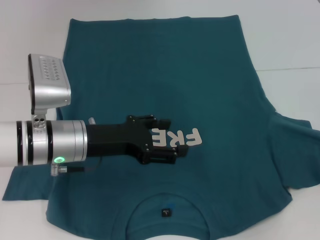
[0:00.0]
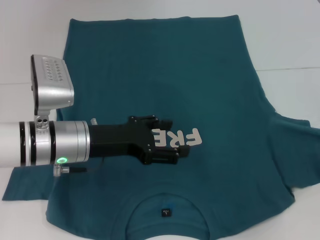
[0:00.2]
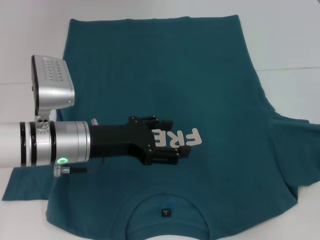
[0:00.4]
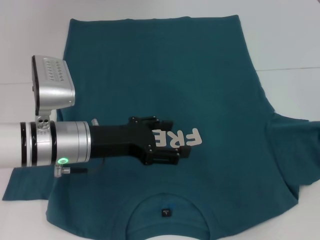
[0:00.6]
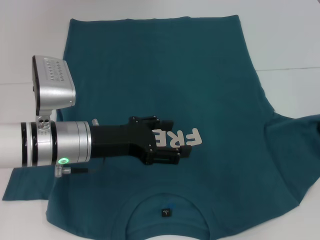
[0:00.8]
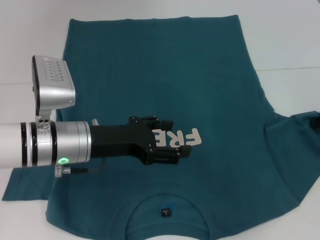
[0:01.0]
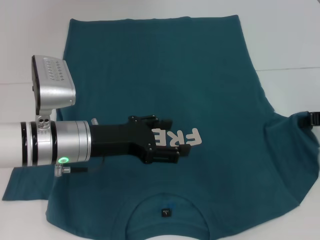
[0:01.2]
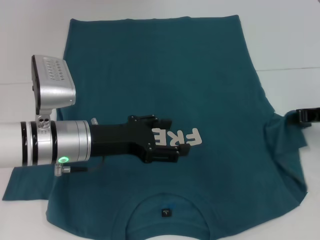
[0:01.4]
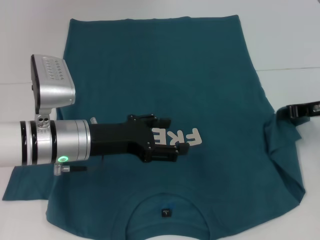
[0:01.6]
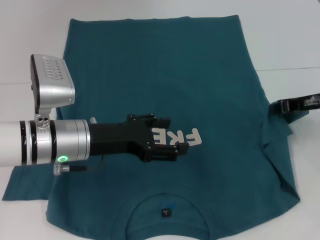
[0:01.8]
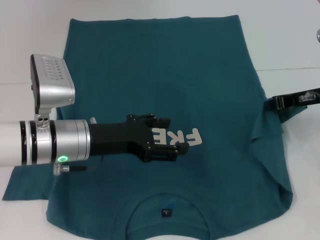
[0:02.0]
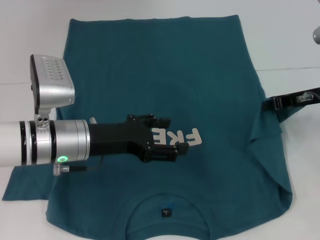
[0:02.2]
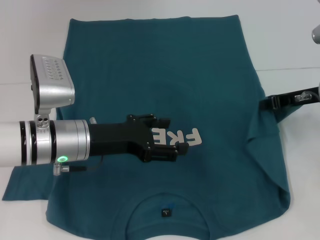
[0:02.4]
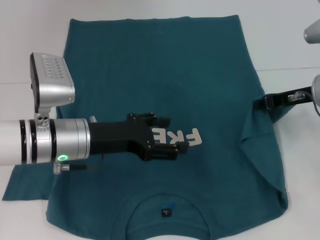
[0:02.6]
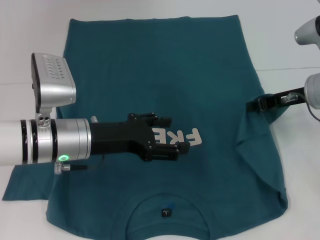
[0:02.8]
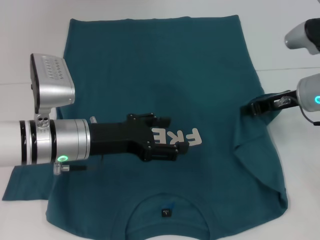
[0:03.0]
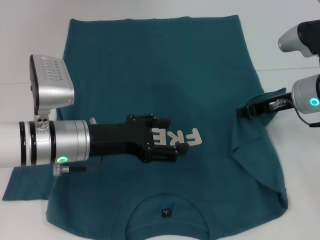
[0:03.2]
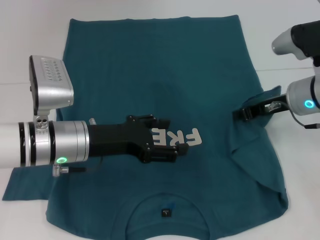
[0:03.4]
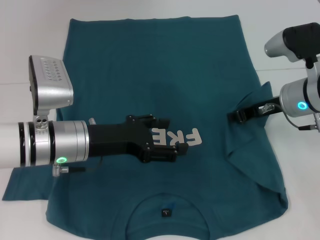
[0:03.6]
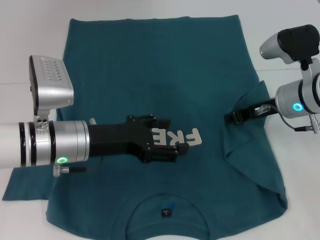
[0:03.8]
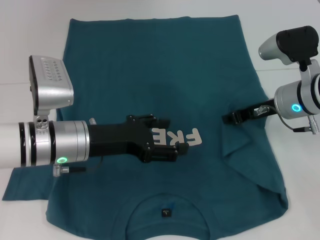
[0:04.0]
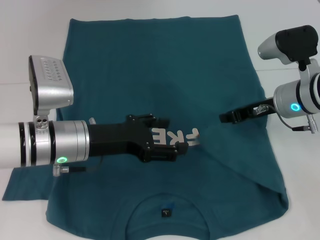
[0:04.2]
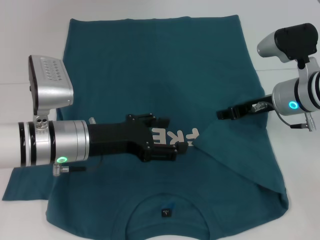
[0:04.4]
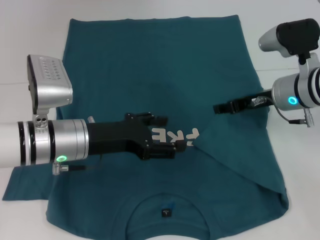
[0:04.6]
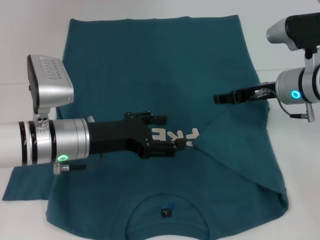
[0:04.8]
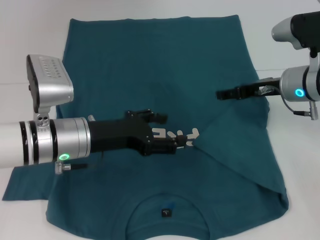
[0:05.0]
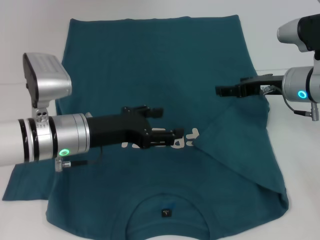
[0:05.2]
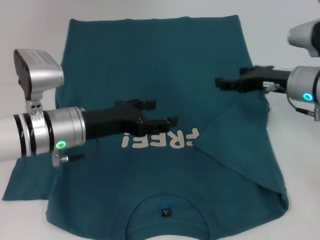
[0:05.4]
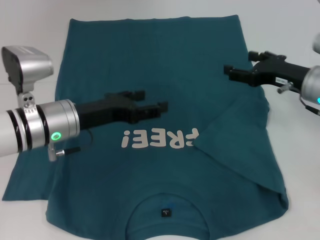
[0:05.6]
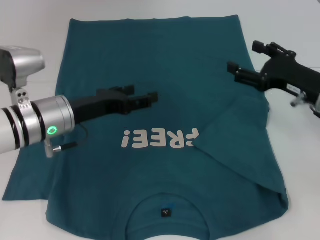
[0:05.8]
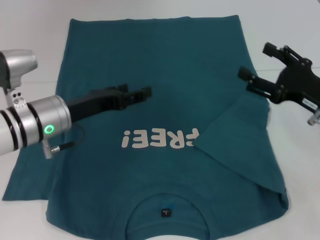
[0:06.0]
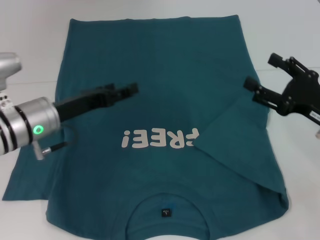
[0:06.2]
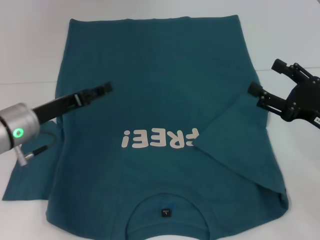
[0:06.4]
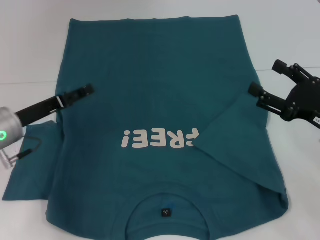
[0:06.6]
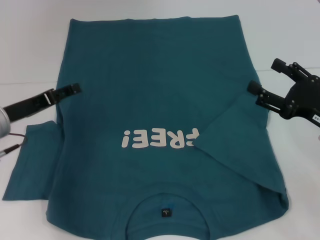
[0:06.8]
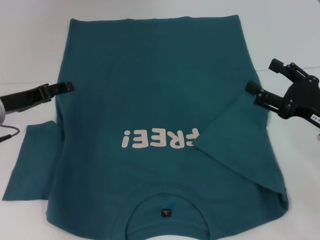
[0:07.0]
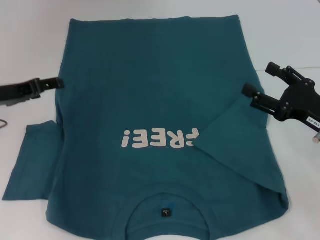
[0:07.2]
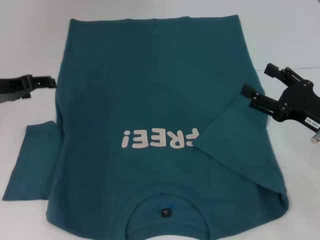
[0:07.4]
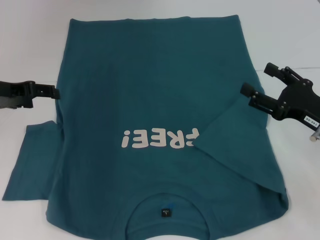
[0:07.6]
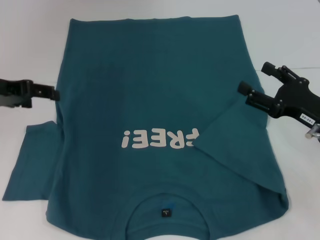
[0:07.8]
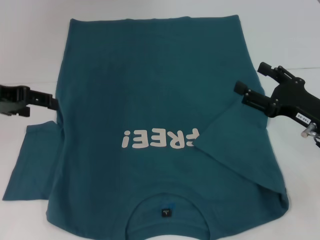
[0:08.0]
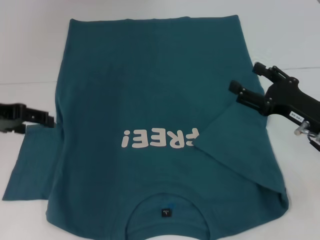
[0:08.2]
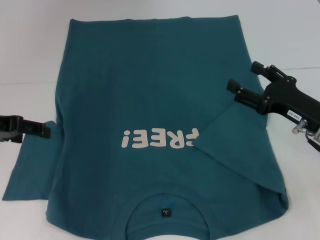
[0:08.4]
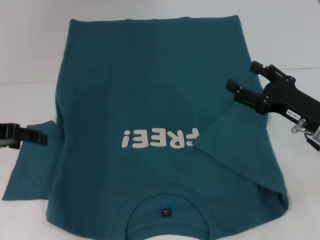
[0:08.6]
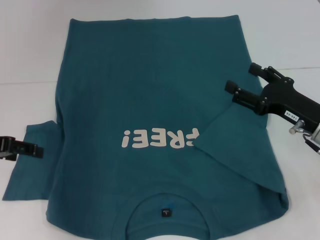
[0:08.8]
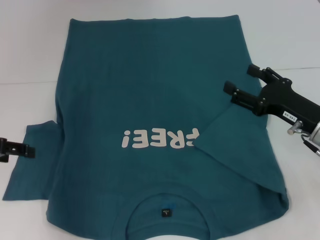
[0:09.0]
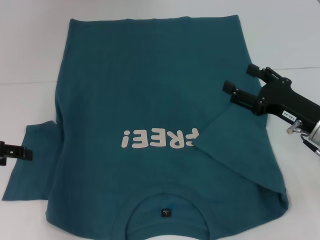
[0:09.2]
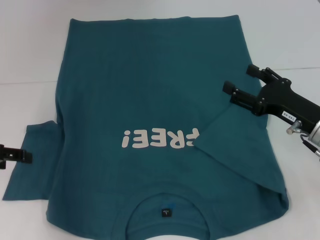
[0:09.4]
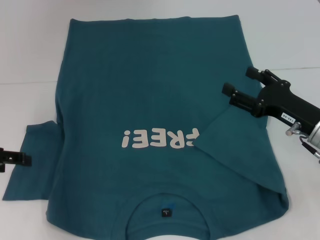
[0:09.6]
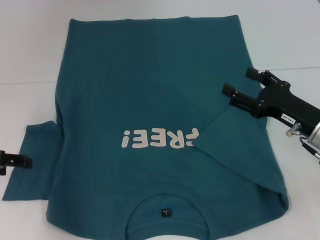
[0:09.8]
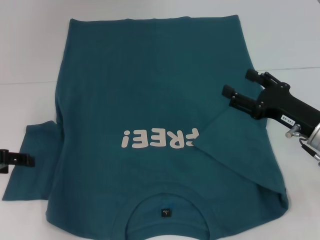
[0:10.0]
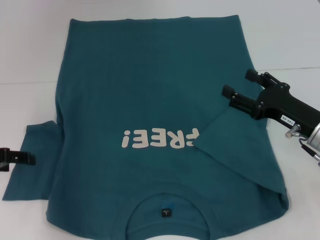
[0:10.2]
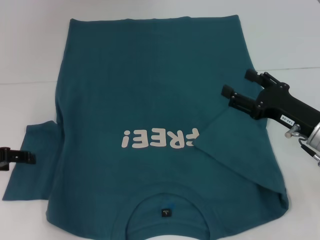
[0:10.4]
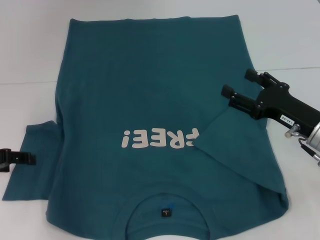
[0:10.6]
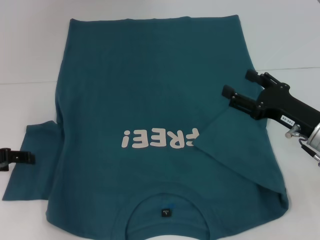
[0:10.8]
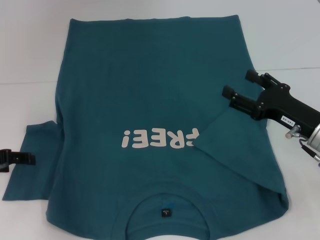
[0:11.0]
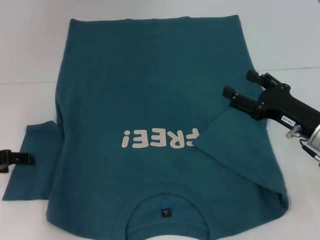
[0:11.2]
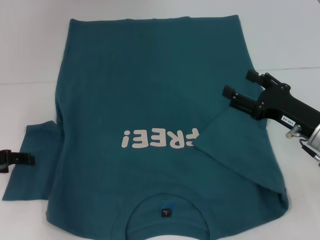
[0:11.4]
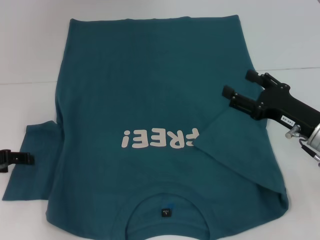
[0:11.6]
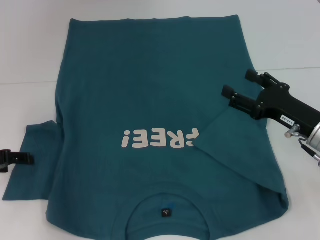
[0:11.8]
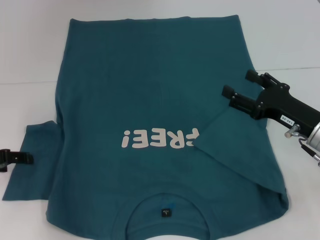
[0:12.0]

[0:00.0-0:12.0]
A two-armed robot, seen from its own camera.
Step, 0:00.0 to 0:05.2: Fold the bottom right sleeve to the right.
0:00.0 to 0:01.6: The right gripper goes about 10 cm to the left and forward.
0:01.6 to 0:03.0: The right gripper travels to the left by some 5 cm.
0:03.0 to 0:04.4: The grippers make only small movements.
0:04.4 to 0:06.0: The right gripper heads backward and to the right, covering approximately 10 cm, and opens its fingers.
0:06.0 to 0:07.6: The left gripper goes approximately 10 cm to the left and upward.
0:07.6 to 0:09.0: The left gripper heads backward, covering some 5 cm.
0:09.0 to 0:10.4: The grippers make only small movements.

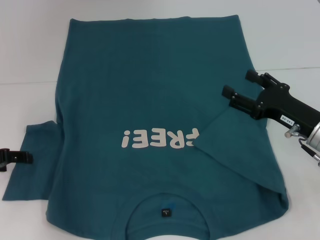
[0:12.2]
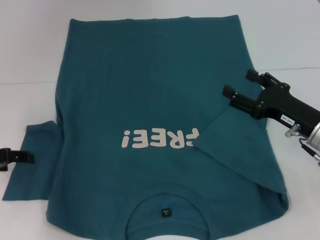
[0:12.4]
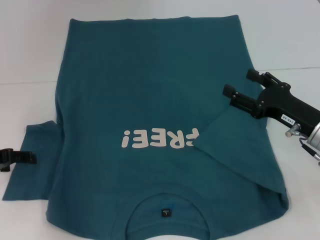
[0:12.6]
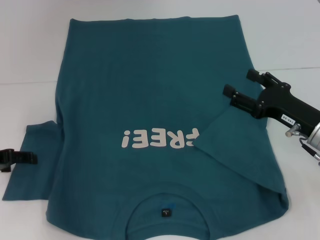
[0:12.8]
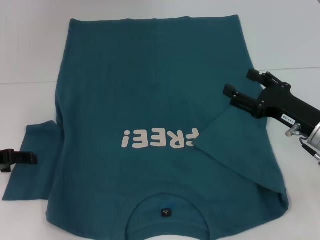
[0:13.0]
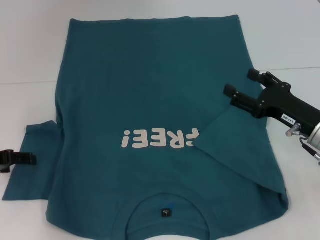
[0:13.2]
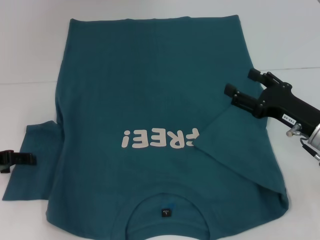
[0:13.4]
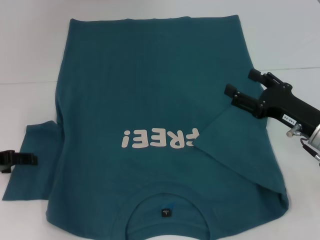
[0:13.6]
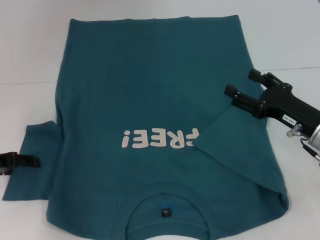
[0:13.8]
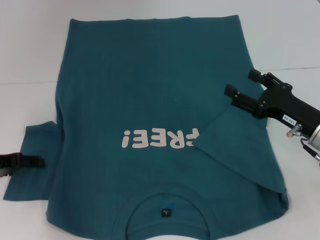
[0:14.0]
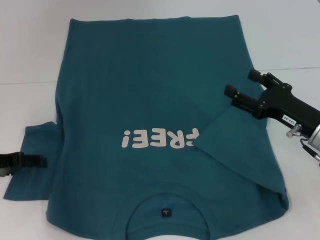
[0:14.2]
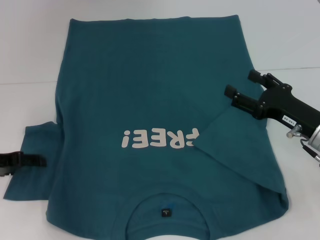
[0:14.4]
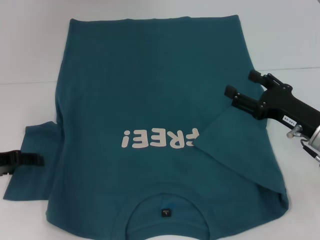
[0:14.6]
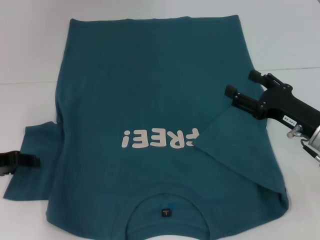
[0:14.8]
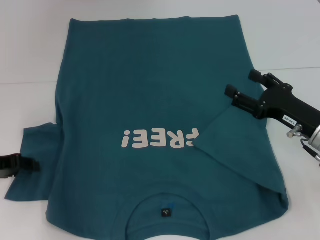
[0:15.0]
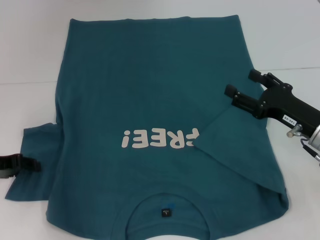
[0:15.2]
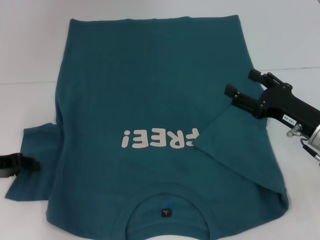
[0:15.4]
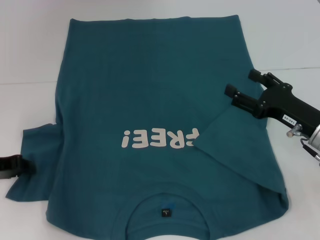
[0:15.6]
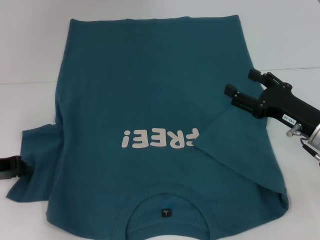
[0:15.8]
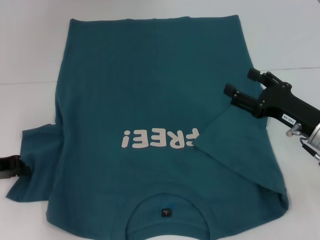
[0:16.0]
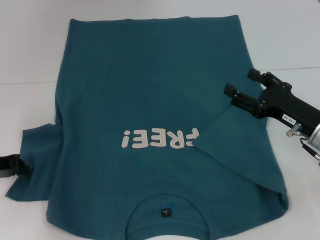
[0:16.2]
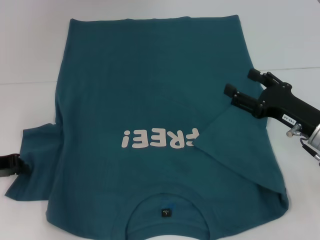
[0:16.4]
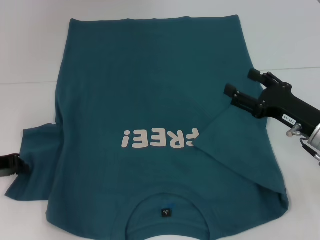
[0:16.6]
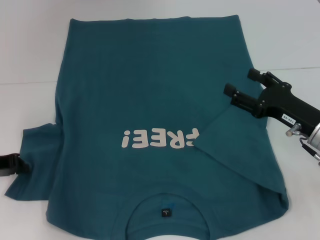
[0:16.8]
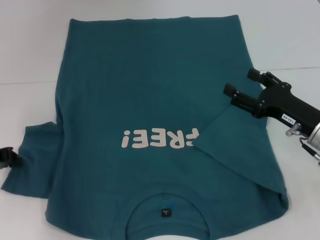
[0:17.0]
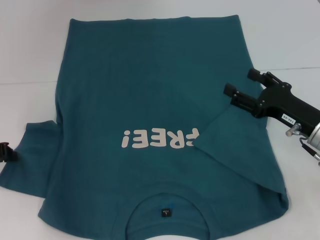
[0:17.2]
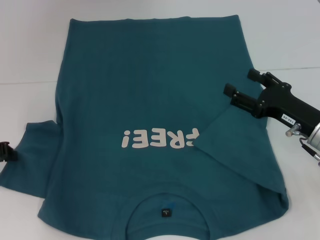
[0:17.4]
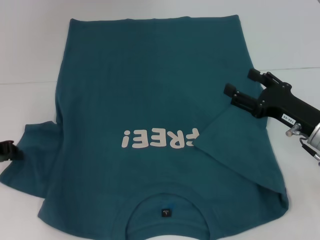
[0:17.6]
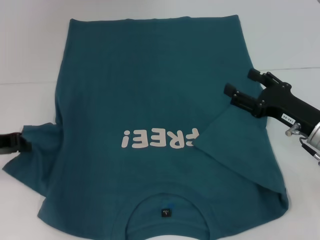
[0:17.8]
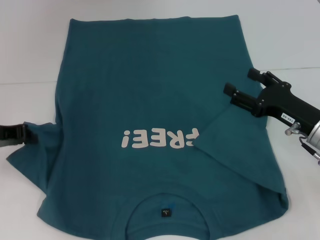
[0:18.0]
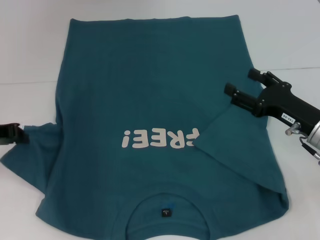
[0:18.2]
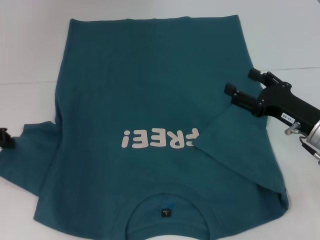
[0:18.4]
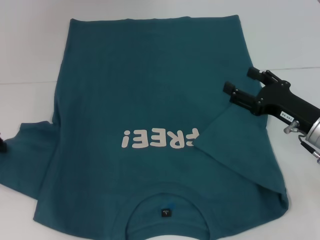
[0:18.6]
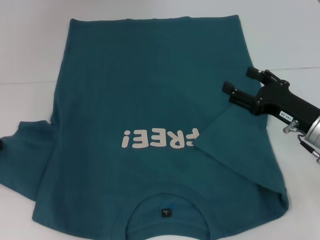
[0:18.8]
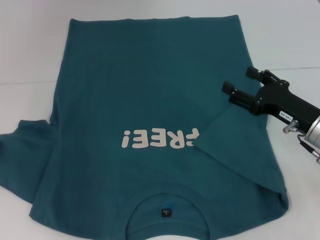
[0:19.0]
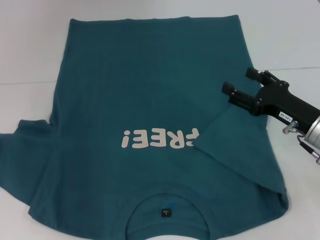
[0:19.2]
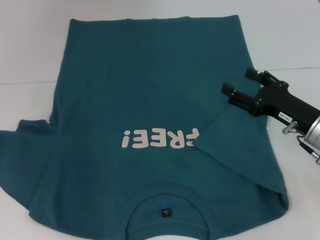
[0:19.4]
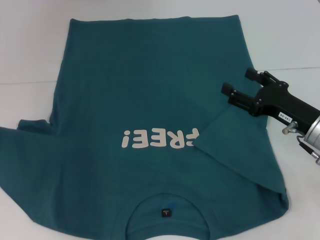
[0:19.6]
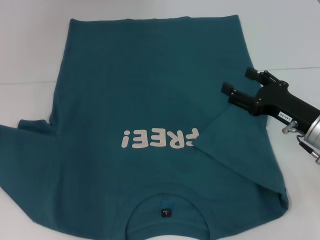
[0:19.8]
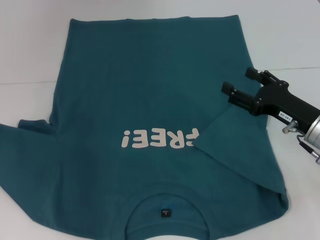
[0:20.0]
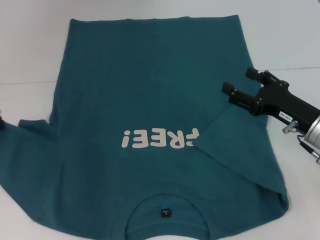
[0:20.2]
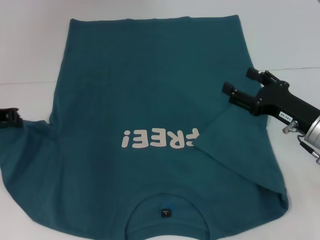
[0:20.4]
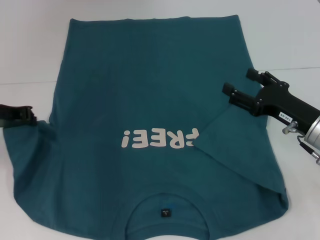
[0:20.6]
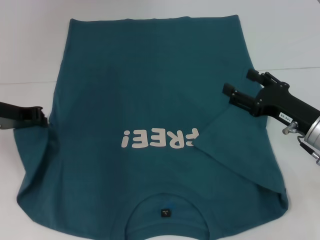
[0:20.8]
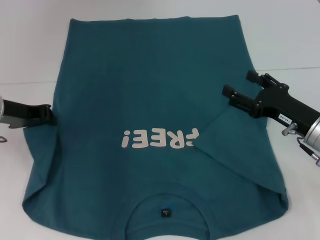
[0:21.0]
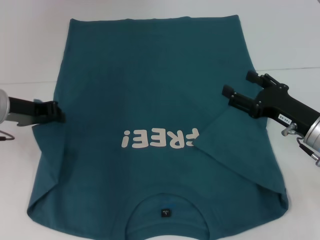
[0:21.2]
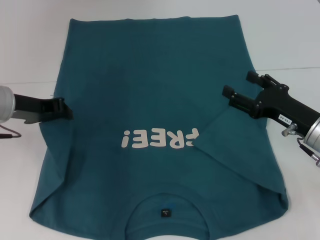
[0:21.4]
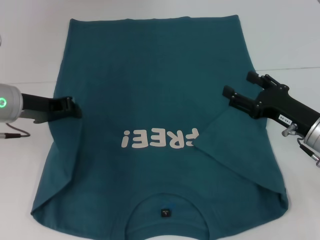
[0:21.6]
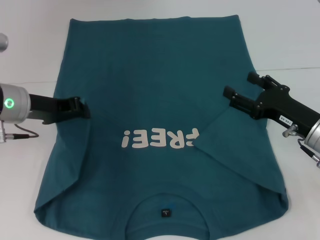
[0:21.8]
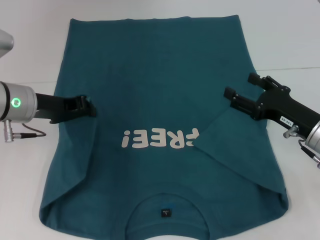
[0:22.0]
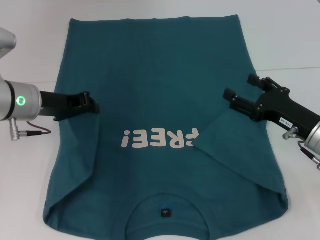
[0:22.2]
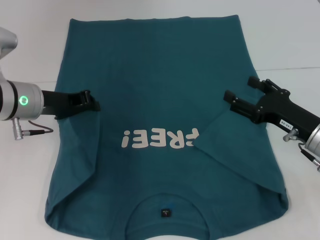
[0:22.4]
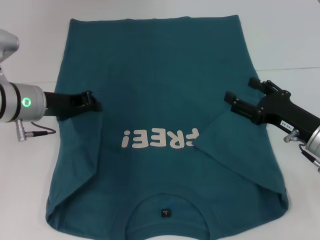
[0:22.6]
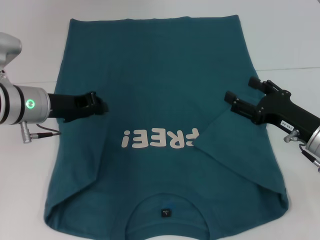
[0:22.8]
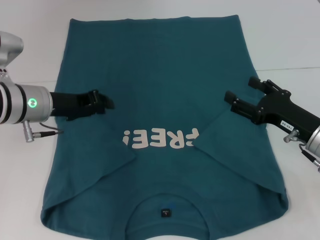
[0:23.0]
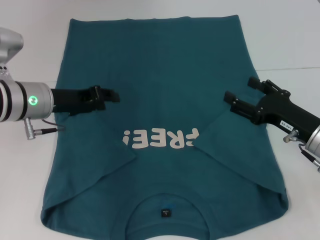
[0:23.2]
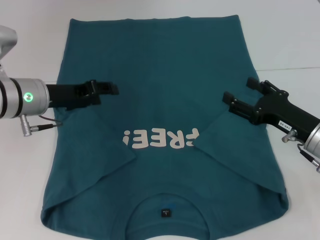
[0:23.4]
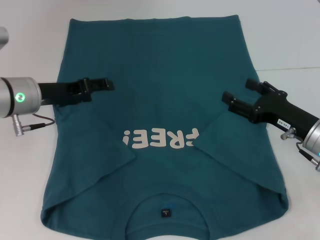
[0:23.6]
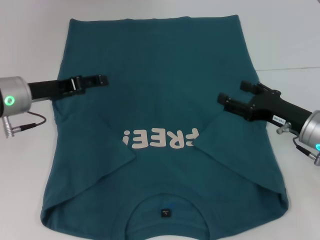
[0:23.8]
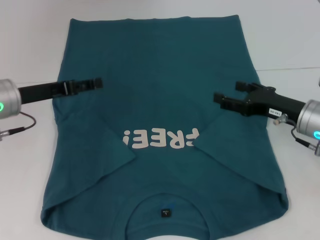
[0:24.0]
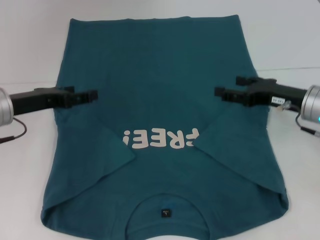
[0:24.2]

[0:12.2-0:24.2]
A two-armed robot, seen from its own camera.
Step, 0:12.2 to 0:23.4: Fold the bottom left sleeve with your left hand.
0:12.2 to 0:13.8: The two grippers keep their place.
0:13.8 to 0:15.2: The two grippers keep their place.
0:16.6 to 0:18.2: The left gripper ends up roughly 5 cm from where it was.
0:18.2 to 0:19.8: The grippers stay close to where they were, moving slightly.
0:19.8 to 0:21.2: The left gripper travels to the right by approximately 10 cm.
0:21.2 to 0:22.6: The grippers stay close to where they were, moving slightly.
0:22.6 to 0:24.2: The left gripper shifts by about 5 cm, and opens its fingers. Meanwhile the right gripper shifts about 5 cm forward.
